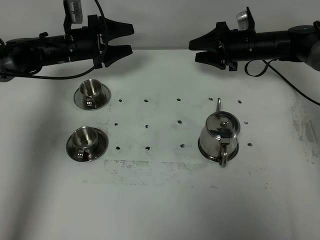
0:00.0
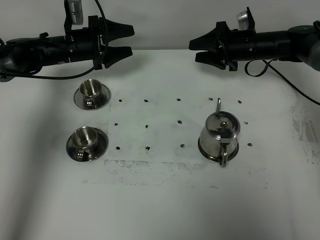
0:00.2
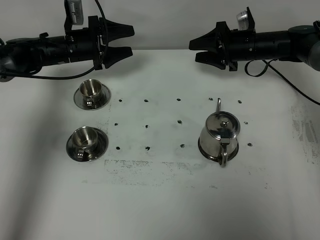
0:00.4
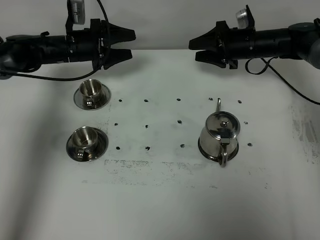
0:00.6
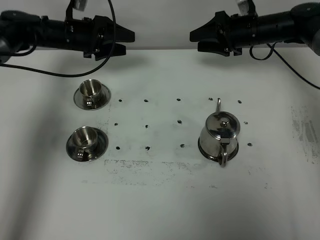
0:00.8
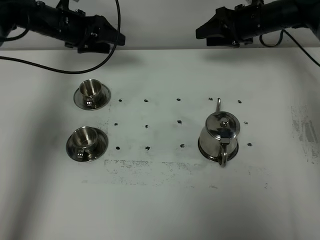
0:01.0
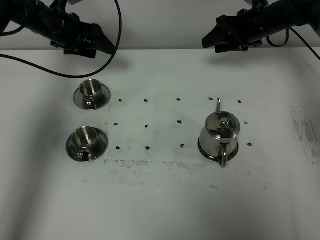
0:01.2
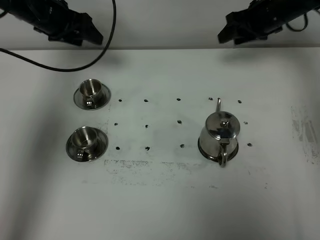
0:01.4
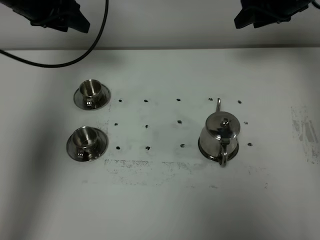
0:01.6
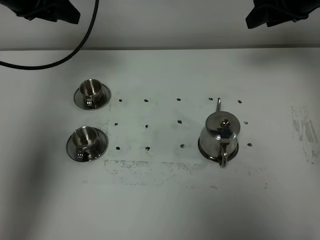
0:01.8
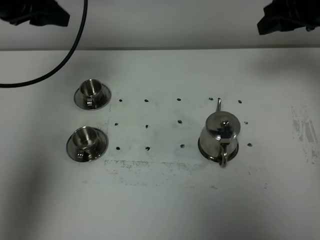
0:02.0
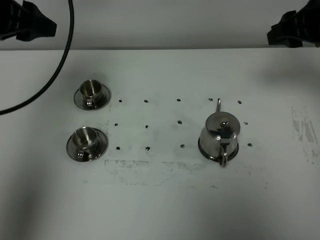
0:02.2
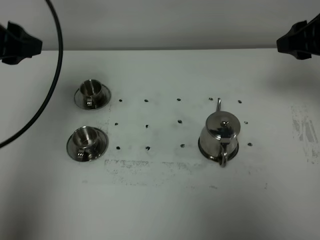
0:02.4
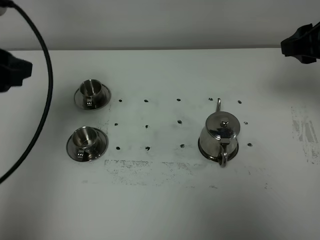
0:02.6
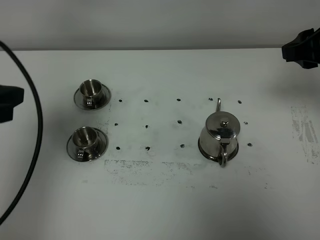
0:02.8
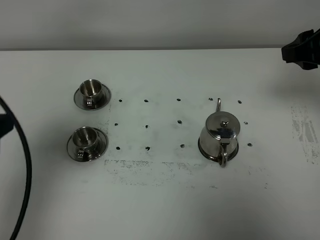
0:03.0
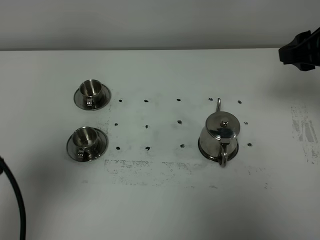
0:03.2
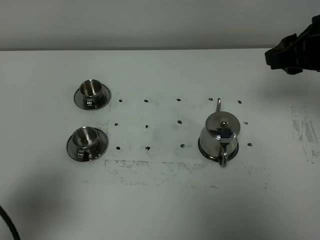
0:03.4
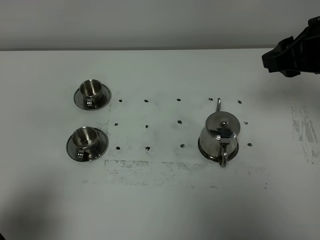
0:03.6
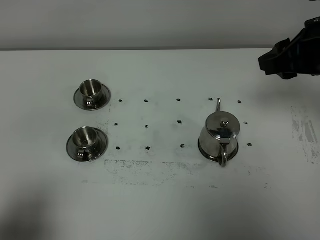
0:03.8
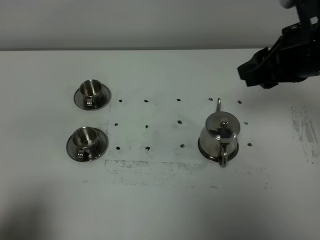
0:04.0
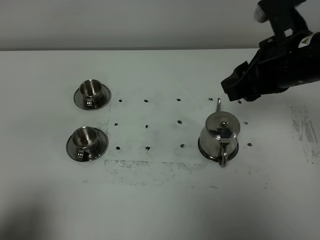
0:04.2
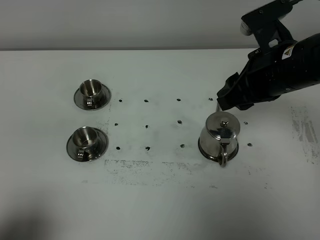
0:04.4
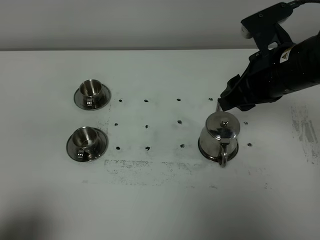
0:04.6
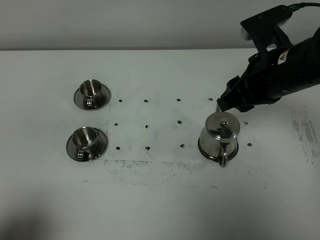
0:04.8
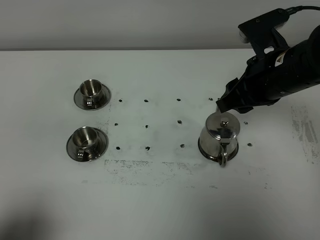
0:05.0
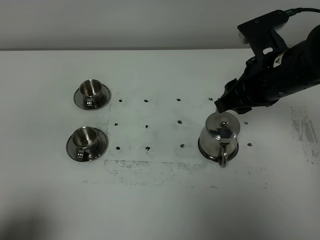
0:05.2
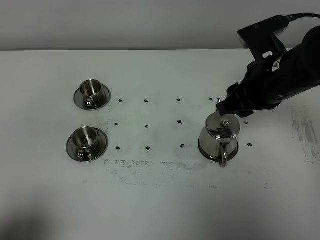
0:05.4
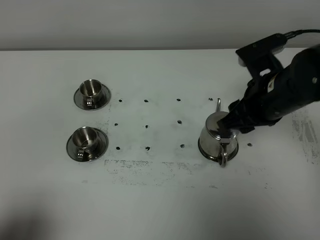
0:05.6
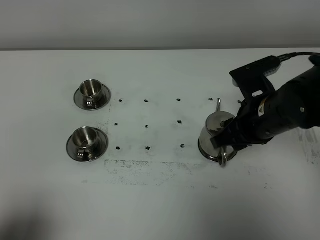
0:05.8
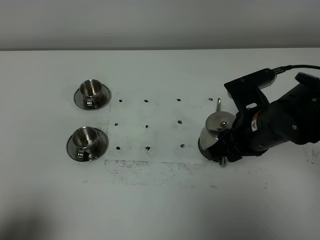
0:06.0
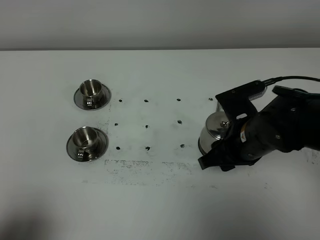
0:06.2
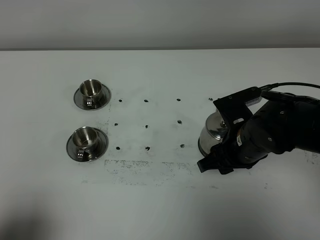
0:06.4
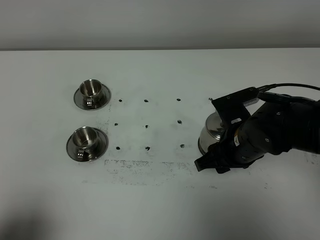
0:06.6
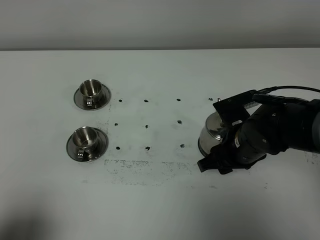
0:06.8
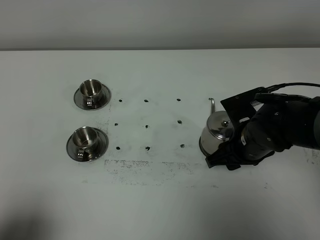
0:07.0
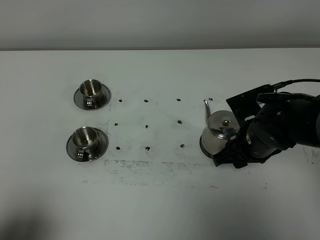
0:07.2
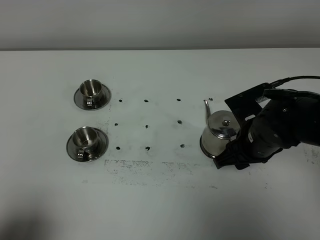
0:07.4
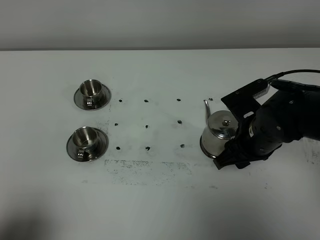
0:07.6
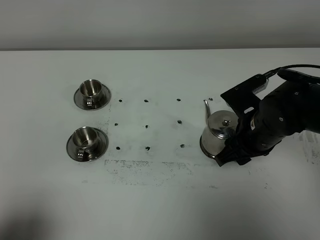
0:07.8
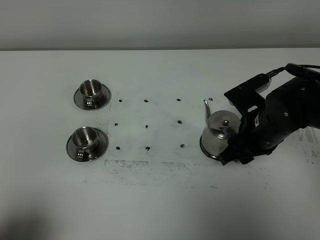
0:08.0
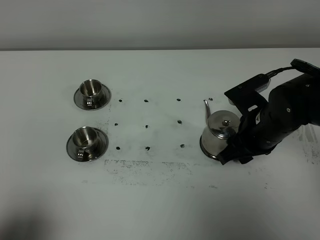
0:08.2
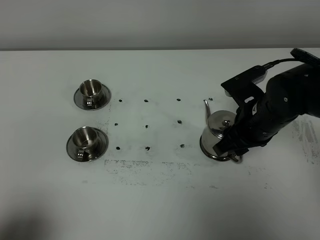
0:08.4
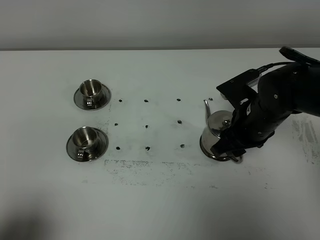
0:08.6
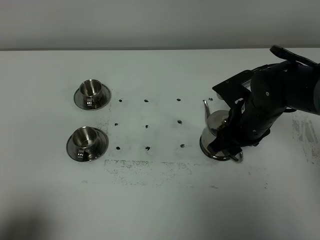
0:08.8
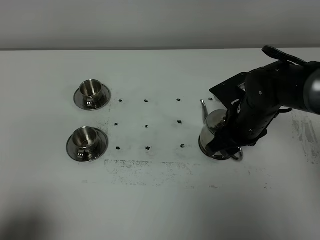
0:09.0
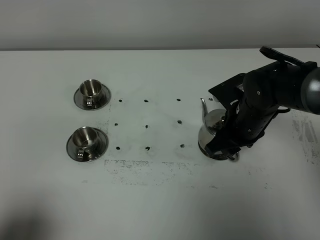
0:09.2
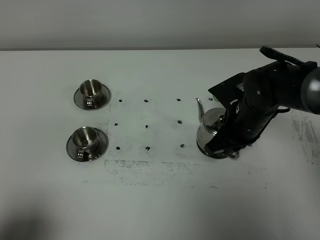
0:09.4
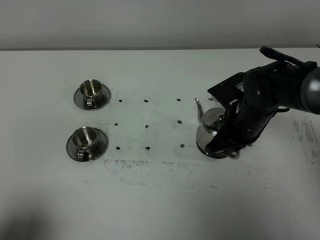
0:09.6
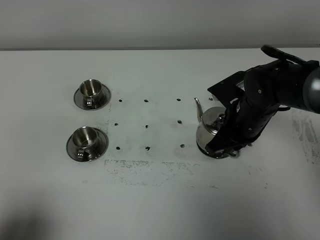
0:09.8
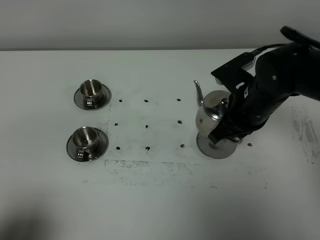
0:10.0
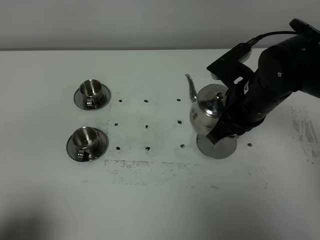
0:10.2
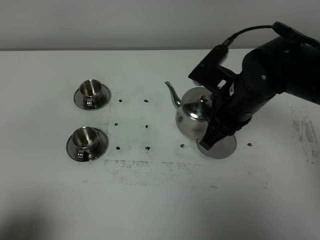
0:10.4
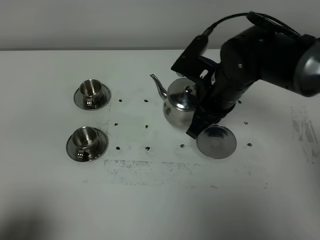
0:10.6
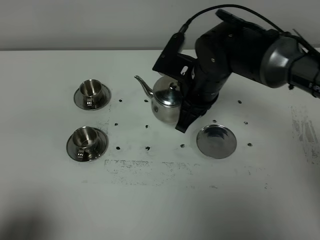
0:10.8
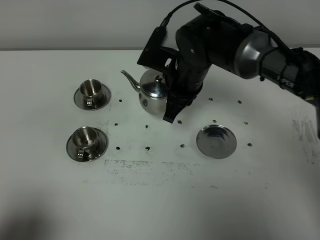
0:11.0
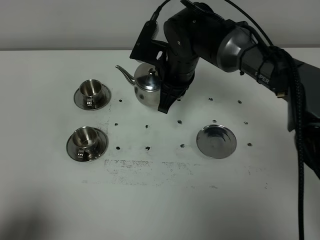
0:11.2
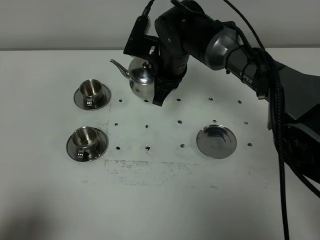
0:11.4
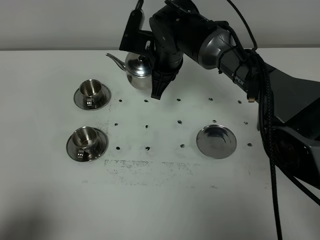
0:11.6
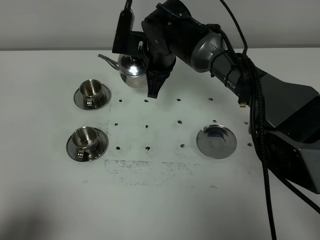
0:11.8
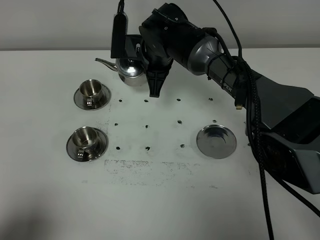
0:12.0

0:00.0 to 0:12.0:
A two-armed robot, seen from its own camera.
Task of the whole recording: grasp the stainless steel teapot and pour the tea into the two stainless steel teacups one by one, put the stainless steel teapot back in its original place.
Step, 0:00.0 to 0:09.8: Pick up the teapot with the right gripper.
0:00.0 to 0:01.6: Both grippers move upward, about 15 cm. The left gripper closes.
0:01.6 to 0:03.0: The left gripper moves backward, some 30 cm; the right gripper moves backward, approximately 15 cm.
0:03.0 to 0:04.4: The right gripper is displaced to the left by some 10 cm; the left gripper goes about 15 cm backward and downward.
0:04.4 to 0:06.0: The right gripper moves downward, about 10 cm.
0:06.0 to 0:07.6: There are only small adjustments of the grippers.
0:07.6 to 0:09.0: The right gripper shifts by approximately 5 cm.
0:09.0 to 0:10.4: The right gripper travels upward by roughly 5 cm, and closes its fingers.
0:10.4 to 0:12.0: The right gripper moves forward and to the left, some 20 cm.

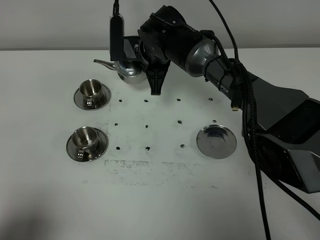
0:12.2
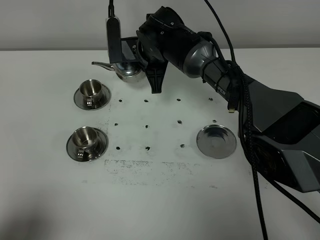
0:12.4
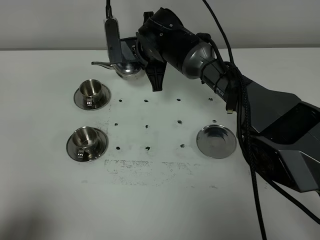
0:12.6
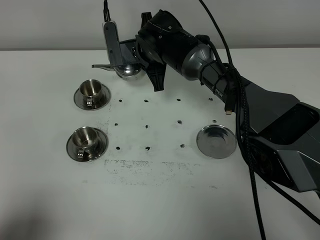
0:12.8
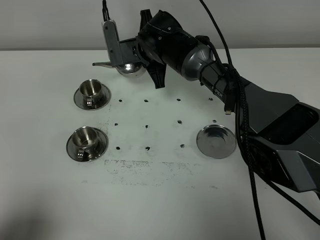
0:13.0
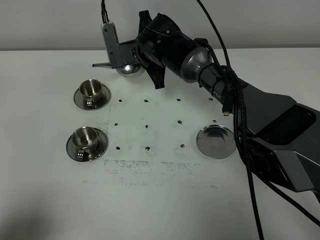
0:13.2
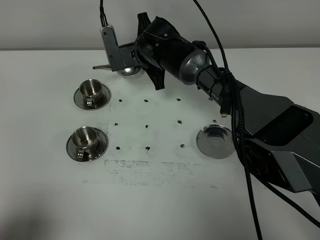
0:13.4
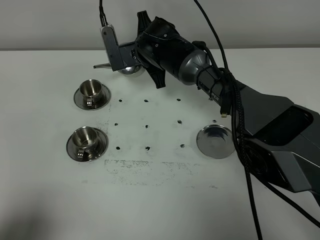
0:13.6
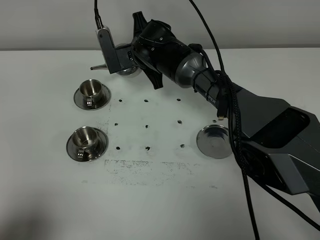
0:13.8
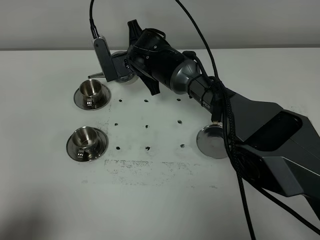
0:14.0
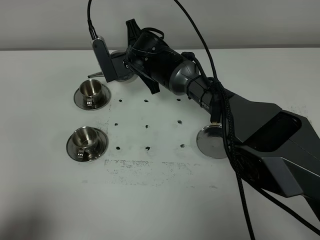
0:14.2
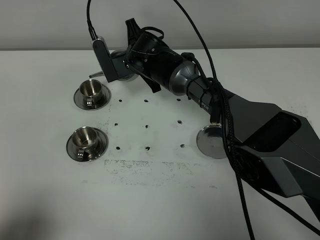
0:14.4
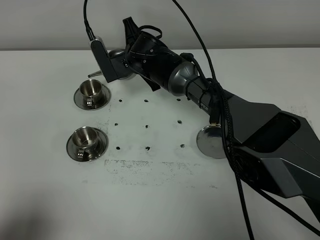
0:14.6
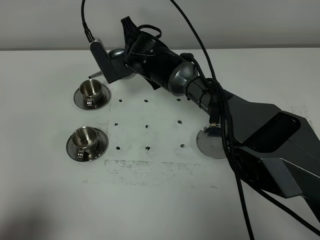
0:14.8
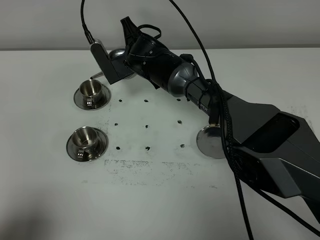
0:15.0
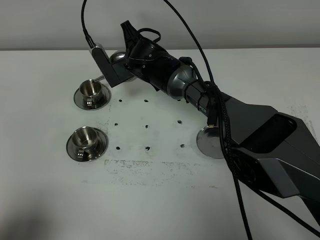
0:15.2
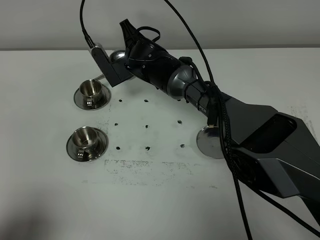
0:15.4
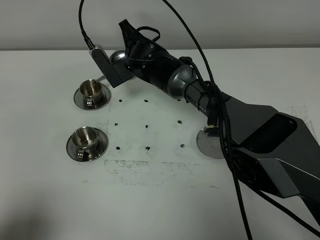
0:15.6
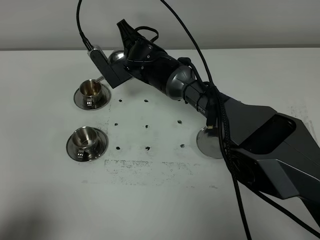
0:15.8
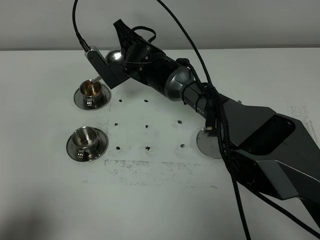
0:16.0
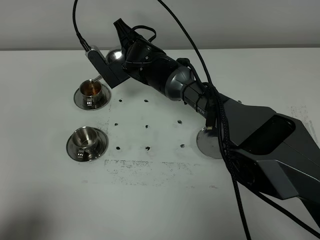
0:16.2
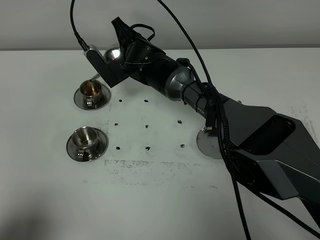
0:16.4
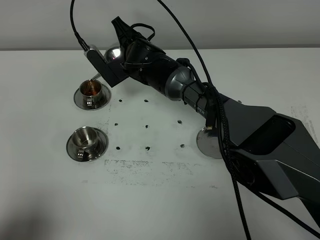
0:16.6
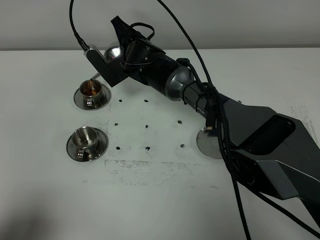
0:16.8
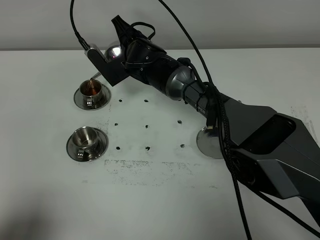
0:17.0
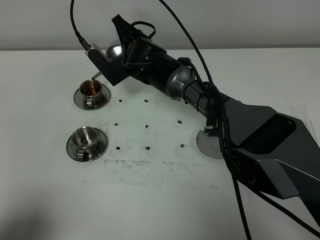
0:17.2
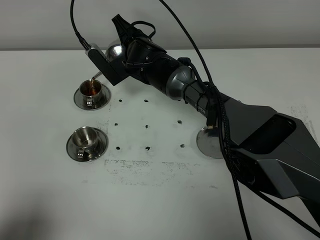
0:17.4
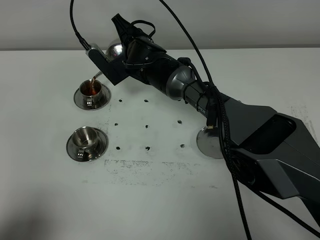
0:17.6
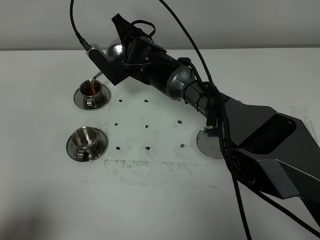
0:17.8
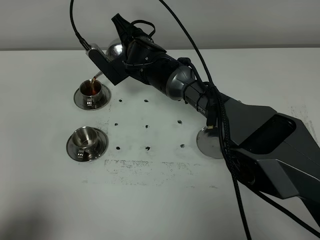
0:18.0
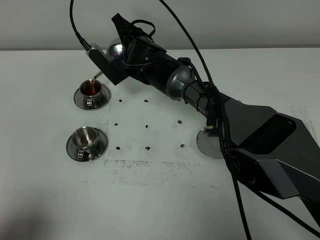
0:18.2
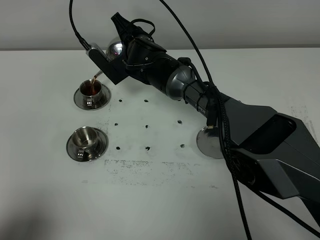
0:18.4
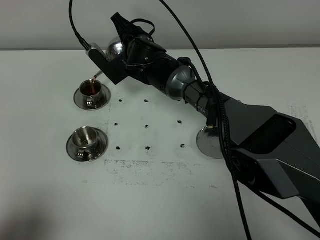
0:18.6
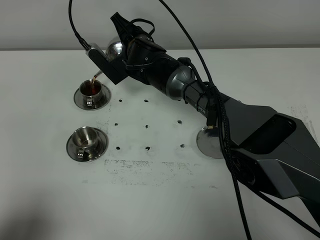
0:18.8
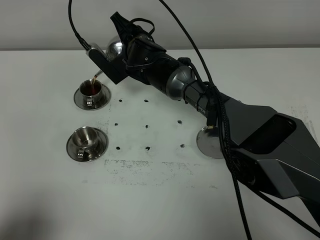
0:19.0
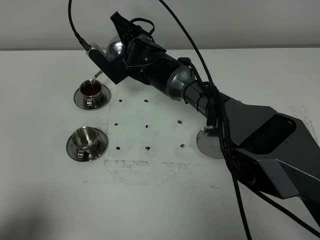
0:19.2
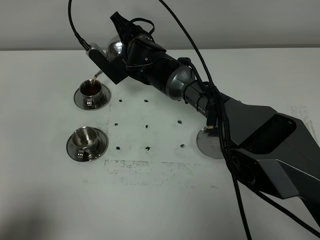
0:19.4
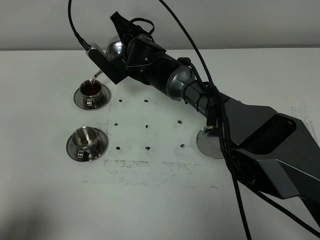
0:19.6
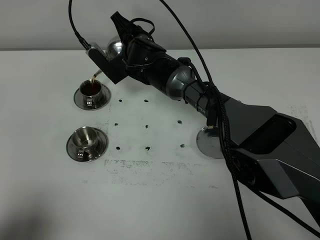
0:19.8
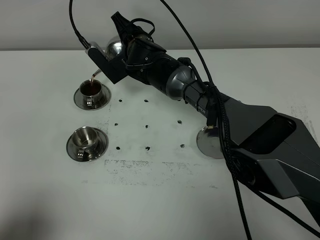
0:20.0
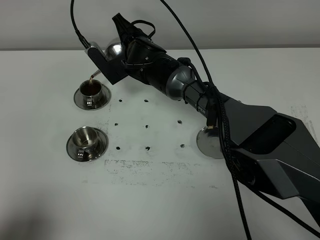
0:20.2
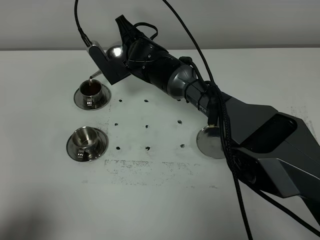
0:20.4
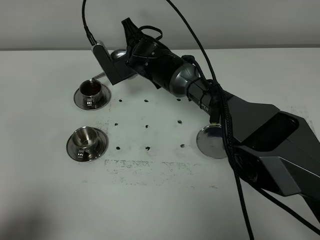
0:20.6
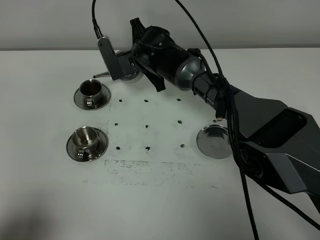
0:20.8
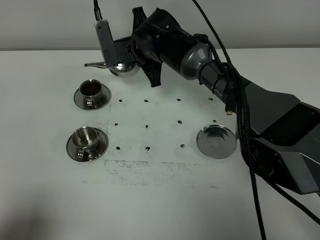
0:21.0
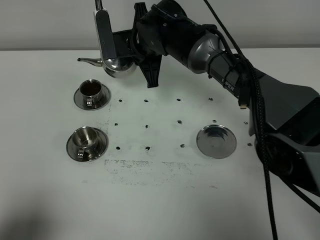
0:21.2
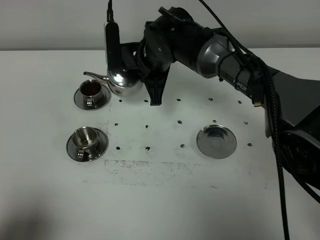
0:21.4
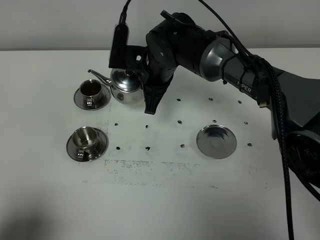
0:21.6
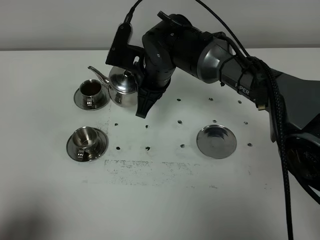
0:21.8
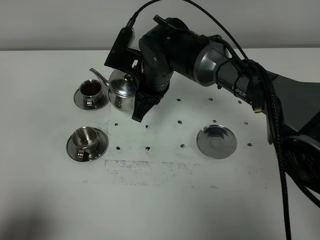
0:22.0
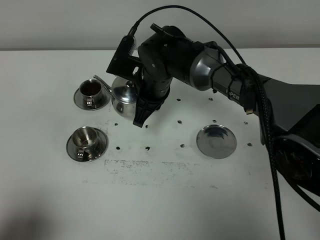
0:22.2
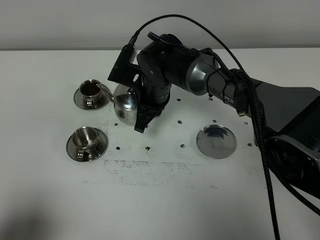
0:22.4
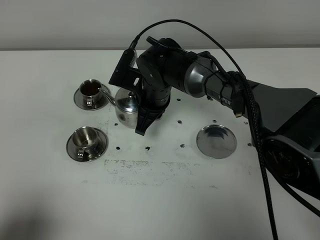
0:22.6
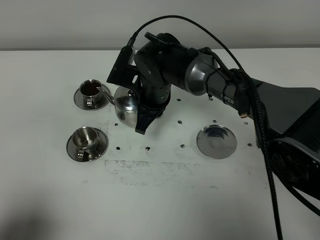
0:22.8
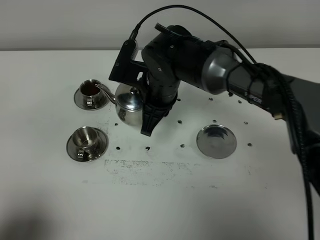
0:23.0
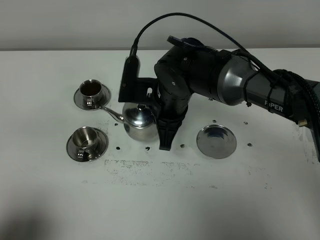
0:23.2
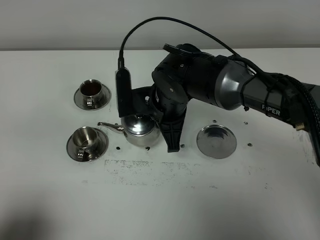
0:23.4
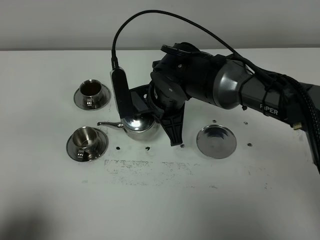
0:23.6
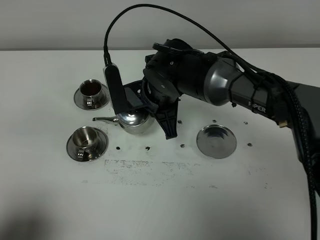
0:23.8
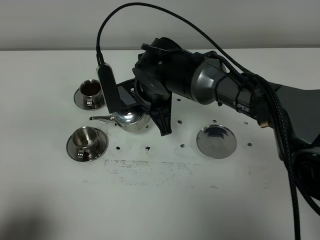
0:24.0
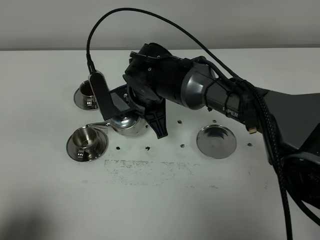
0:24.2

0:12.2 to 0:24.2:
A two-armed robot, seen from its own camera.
Task of the whole recording: grasp the stainless steel teapot and pour the tea into the two stainless steel teacups one by one, put the stainless steel teapot back in its original place.
0:13.8 to 0:15.2: The grippers stay close to where they were, moving slightly.
0:15.2 to 0:16.6: The grippers move only a little.
0:16.6 to 0:18.2: Neither gripper changes place.
0:18.2 to 0:19.8: Both grippers stay about where they are.
0:19.8 to 0:21.2: The right gripper shifts by about 5 cm.
0:21.2 to 0:22.6: The right gripper is displaced downward by approximately 5 cm.
0:22.6 to 0:24.2: The right gripper shifts by some 5 cm.
